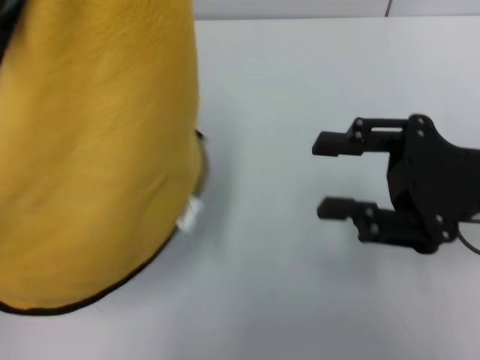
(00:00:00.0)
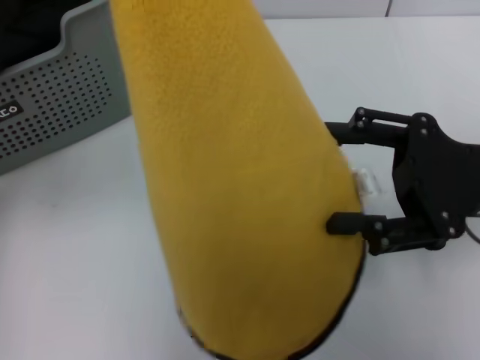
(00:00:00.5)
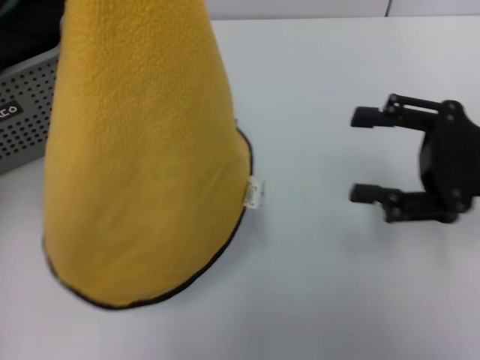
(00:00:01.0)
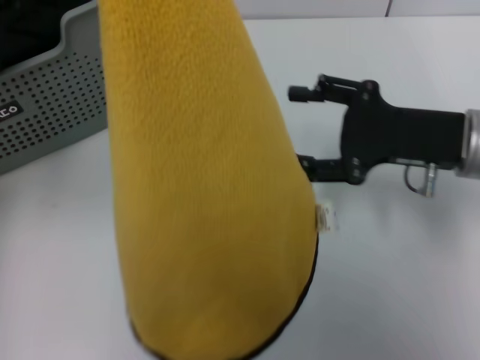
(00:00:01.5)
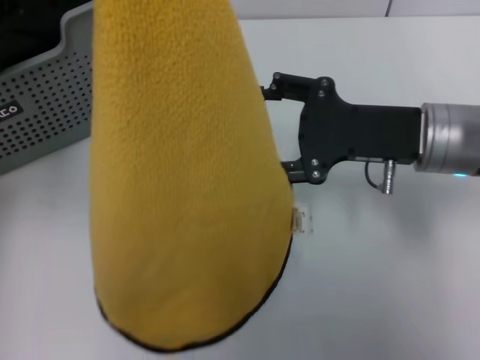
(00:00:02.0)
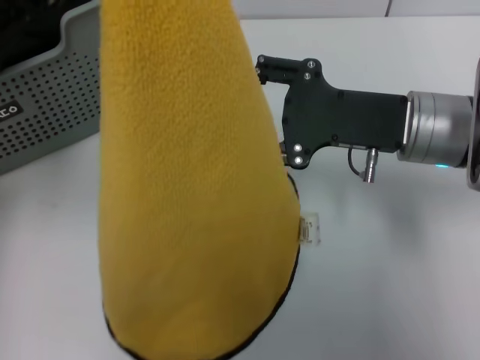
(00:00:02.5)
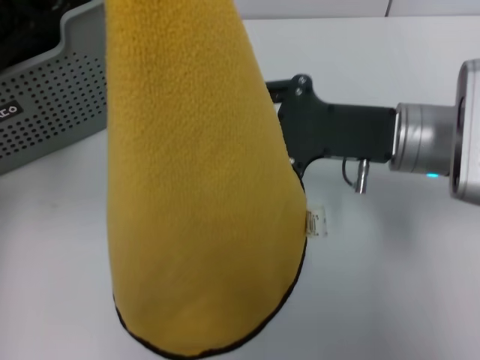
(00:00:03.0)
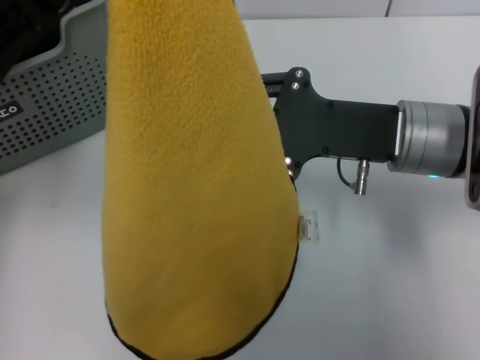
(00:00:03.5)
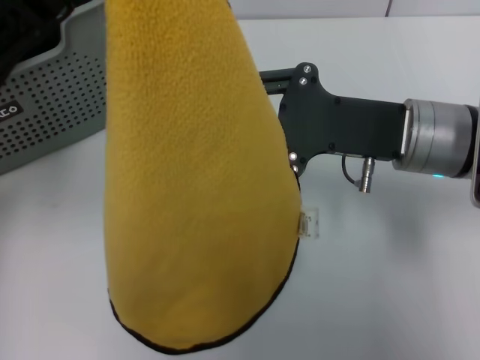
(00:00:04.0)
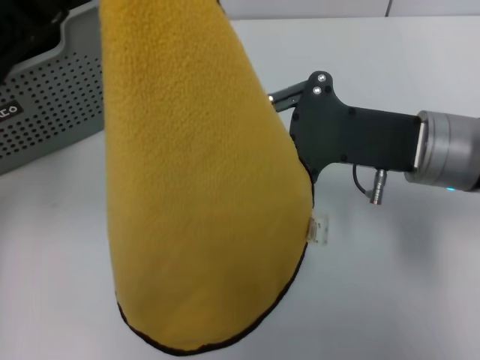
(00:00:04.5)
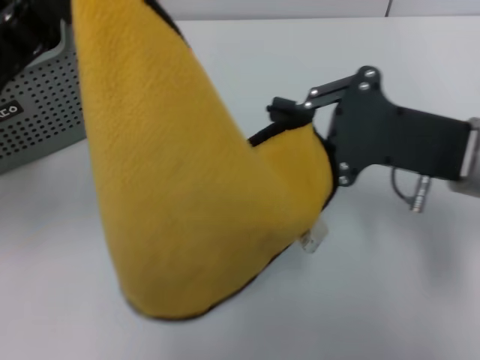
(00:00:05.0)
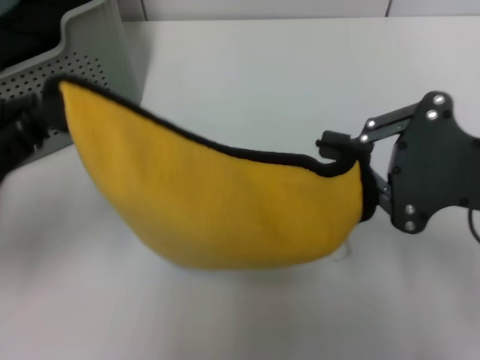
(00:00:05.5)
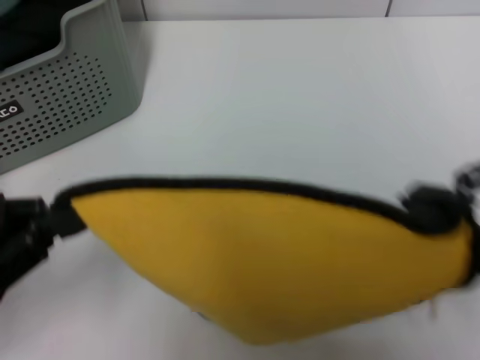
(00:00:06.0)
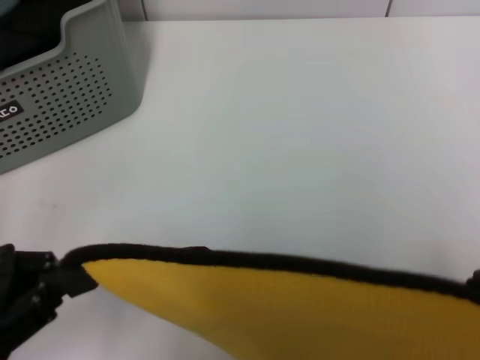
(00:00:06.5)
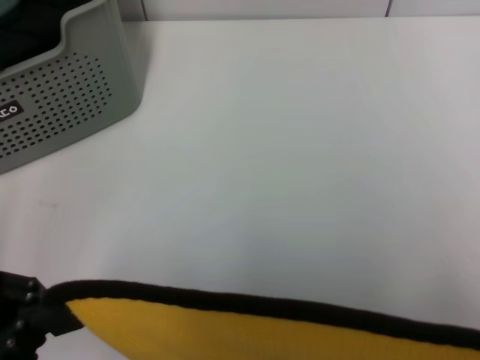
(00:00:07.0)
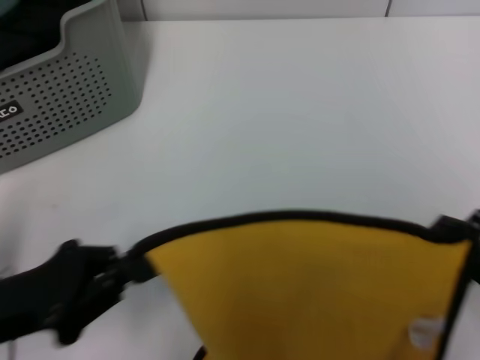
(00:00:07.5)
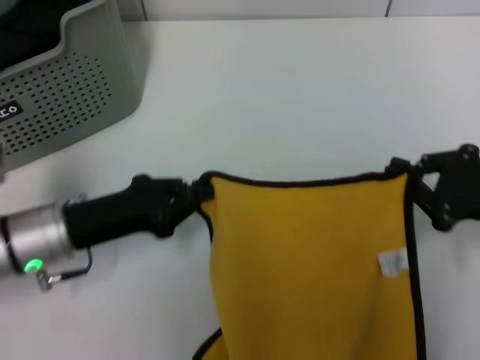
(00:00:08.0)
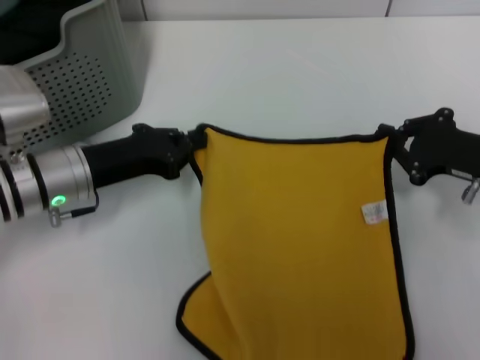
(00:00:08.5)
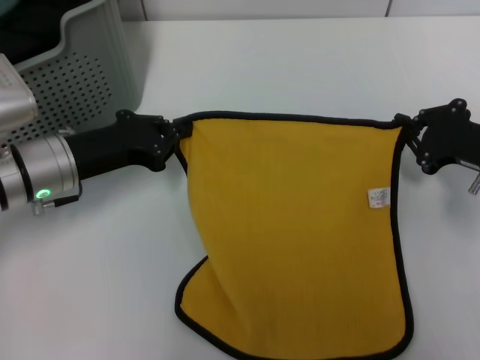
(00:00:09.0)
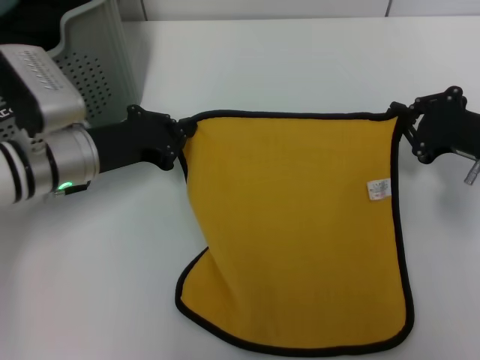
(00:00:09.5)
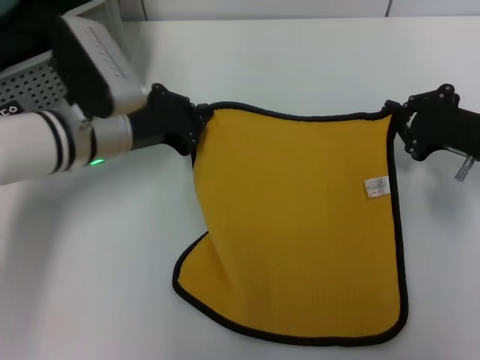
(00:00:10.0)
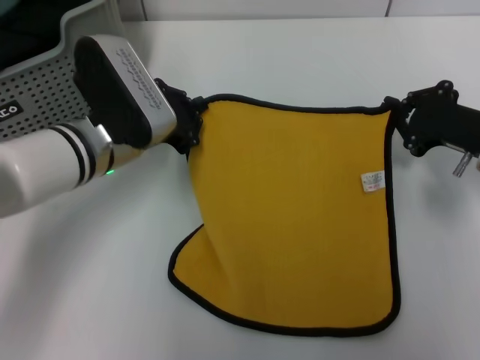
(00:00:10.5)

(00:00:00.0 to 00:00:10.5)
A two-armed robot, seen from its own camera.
Task of the whole recording: pick up the towel from the storage box and lay it flat on the table.
Step, 00:00:00.0 - 00:00:04.5: Spread the towel flat with the left gripper.
00:00:00.0 - 00:00:02.0: The right gripper heads forward and to the left, covering some 10 cm, and opens.
00:00:02.0 - 00:00:04.0: The right gripper closes its fingers.
00:00:04.0 - 00:00:06.5: The right gripper goes approximately 20 cm backward and to the right, and closes. The left gripper heads backward, downward and to the left, covering some 20 cm.
00:00:06.5 - 00:00:08.5: The left gripper goes about 20 cm forward and to the right; the right gripper heads forward and downward, covering some 20 cm.
00:00:08.5 - 00:00:10.5: The left gripper moves to the right, approximately 5 cm.

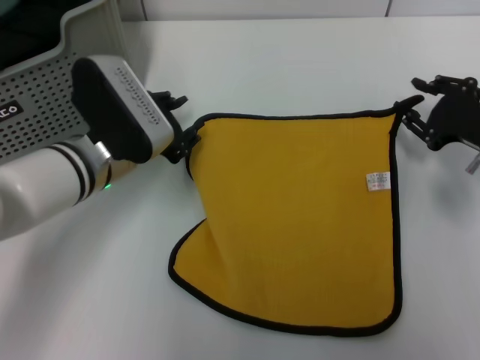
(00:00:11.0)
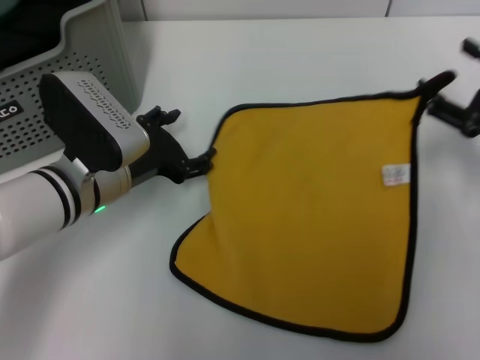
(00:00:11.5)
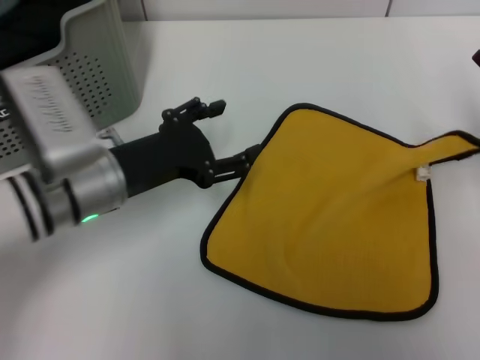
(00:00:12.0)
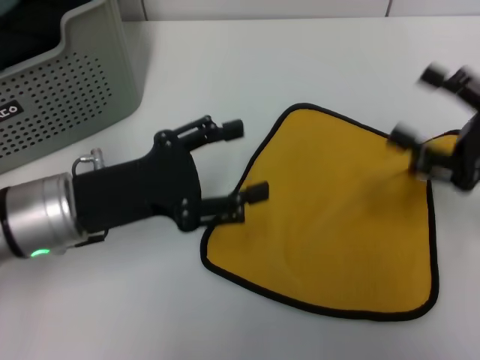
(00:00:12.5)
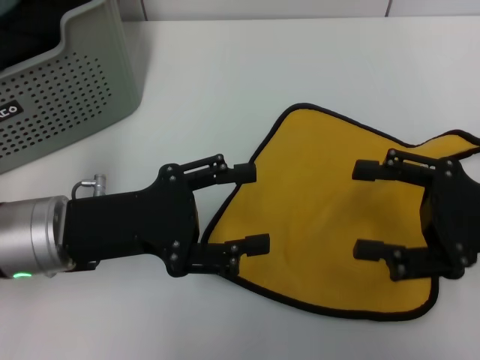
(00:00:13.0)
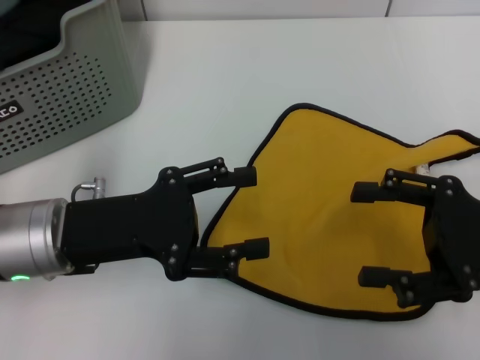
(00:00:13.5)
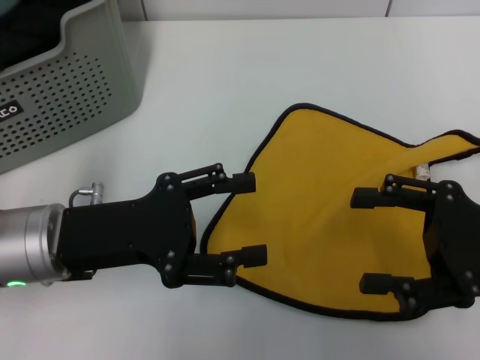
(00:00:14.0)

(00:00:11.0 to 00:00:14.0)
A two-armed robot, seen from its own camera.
Task of the whole recording: pick up the towel from the storage box and lay it flat on the table.
00:00:11.0 - 00:00:12.5: Both grippers travel together backward, roughly 10 cm. The left gripper opens up. Meanwhile the right gripper opens its fingers.
